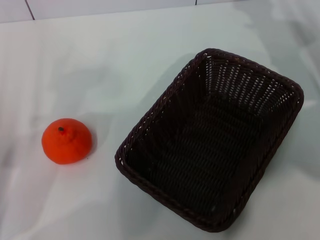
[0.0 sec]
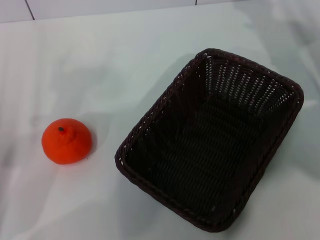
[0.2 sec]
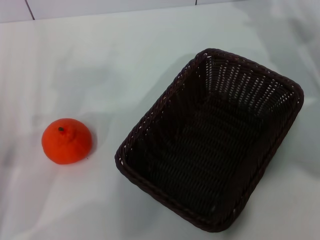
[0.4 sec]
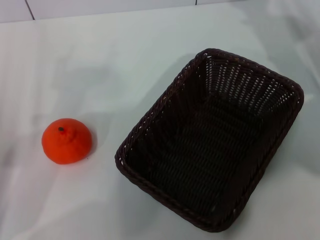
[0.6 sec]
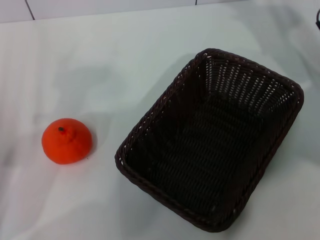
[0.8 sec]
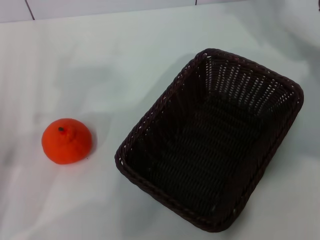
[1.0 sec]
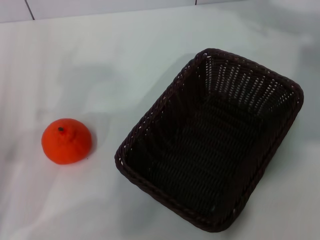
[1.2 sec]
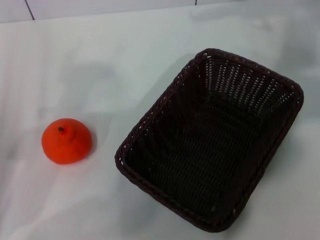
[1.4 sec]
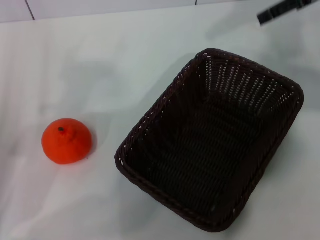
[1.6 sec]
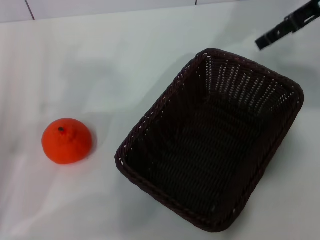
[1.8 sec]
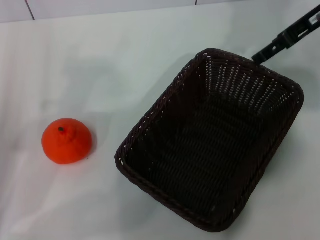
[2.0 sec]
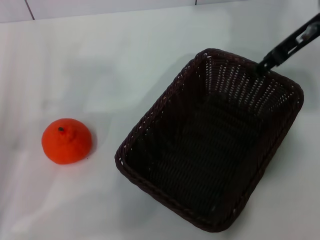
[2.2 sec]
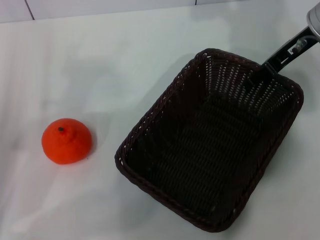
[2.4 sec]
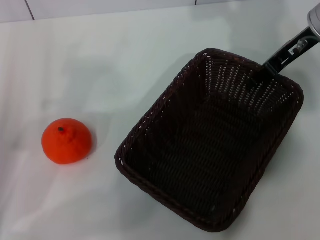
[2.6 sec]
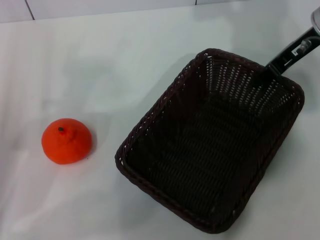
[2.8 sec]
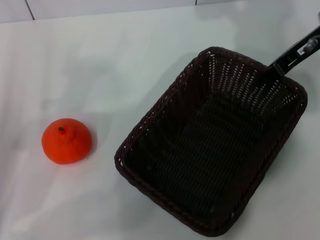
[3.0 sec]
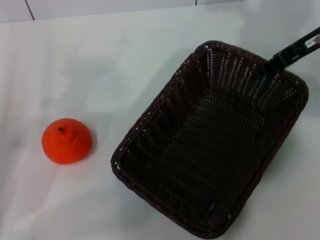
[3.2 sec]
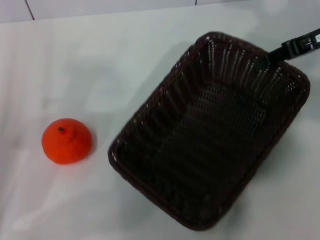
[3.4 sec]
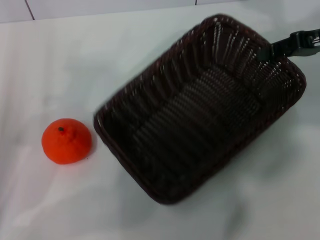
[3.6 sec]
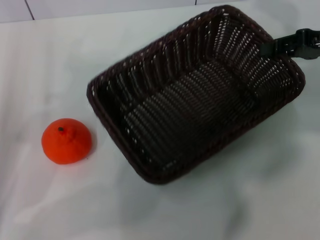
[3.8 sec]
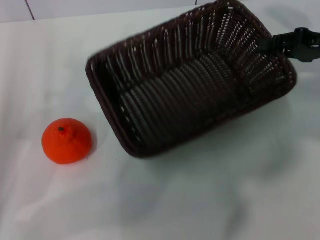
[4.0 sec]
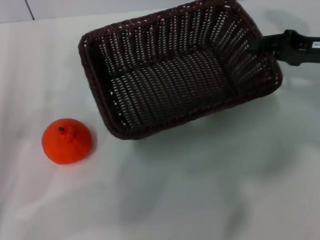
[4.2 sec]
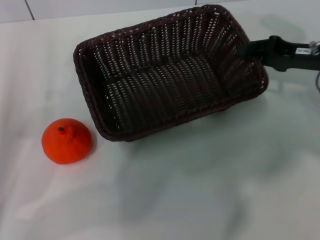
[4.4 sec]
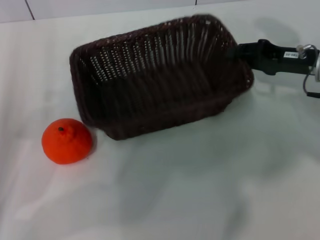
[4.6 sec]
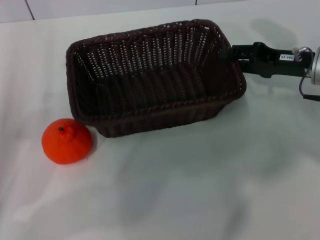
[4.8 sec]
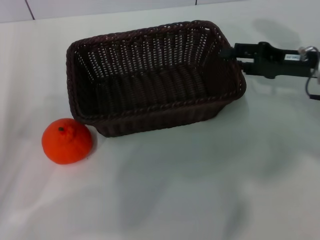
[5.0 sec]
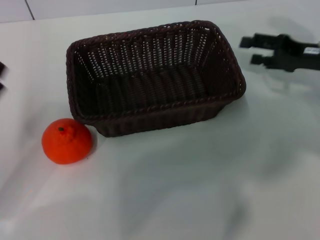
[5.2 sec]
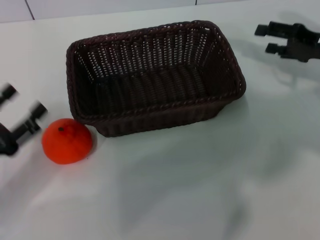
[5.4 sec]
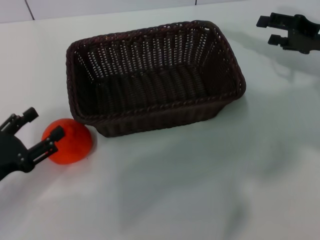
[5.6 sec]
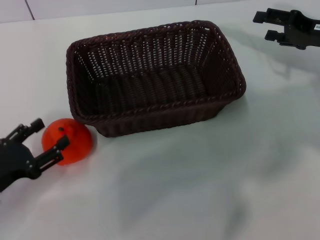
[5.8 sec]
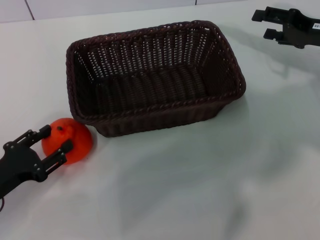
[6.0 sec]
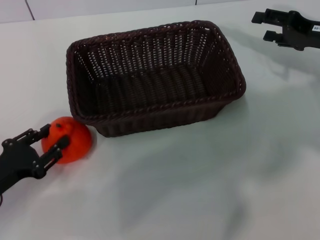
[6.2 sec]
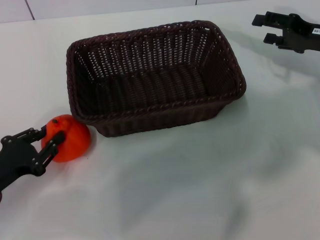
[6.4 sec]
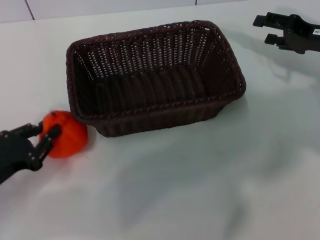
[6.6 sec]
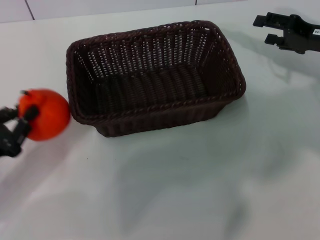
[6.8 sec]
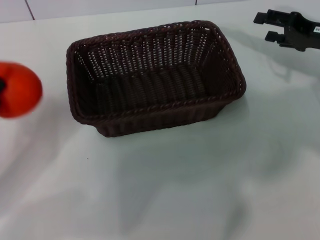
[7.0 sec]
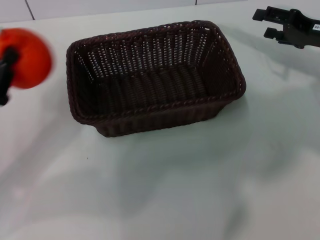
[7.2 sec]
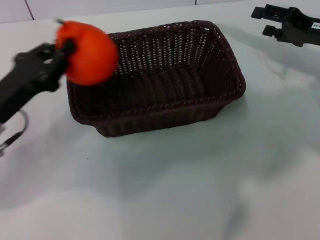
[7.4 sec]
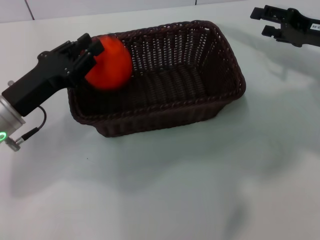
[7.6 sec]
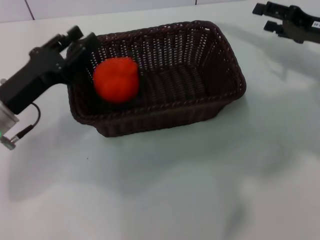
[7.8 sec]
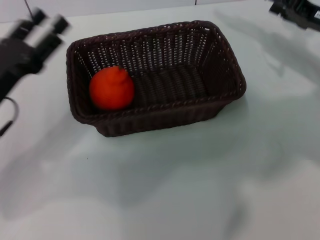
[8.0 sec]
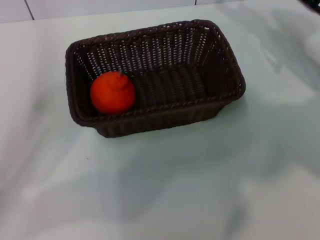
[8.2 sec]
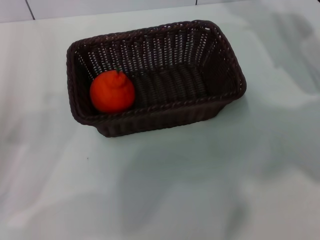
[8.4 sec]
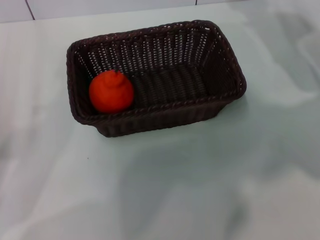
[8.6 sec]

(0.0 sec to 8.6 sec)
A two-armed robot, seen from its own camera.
Task of the whole recording: the right gripper pick up the black basket and place it horizontally in the middle of the table, the left gripper pick up the orange and place it into the black basket.
Step, 0.0 sec - 3.2 sec: Pick up the dark basket with the right gripper.
Step, 3.4 sec - 5.0 sec: Place the dark basket in the center of view with the right gripper.
Step, 5.2 sec - 6.6 sec: Pick up the orange with the left gripper.
Step, 6.8 sec - 7.6 sec: Place the orange into the dark basket with the left gripper.
0.0 sec - 1.4 sec: The right gripper heads upward, covering roughly 15 cm, and opens its fingers.
1.4 sec - 2.8 sec: The right gripper moves downward, approximately 5 cm, and closes up.
2.8 sec - 4.4 sec: The right gripper moves downward, approximately 10 cm.
4.4 sec - 5.8 sec: The right gripper opens its fingers, while the left gripper ends up about 5 cm from where it was.
5.8 sec - 7.2 sec: The left gripper shifts by approximately 5 cm, and closes its fingers.
7.2 sec - 8.6 sec: The left gripper opens its fingers.

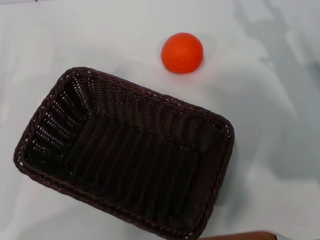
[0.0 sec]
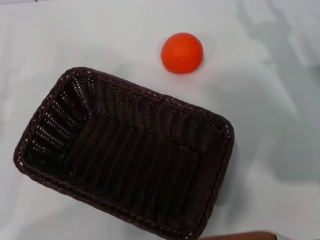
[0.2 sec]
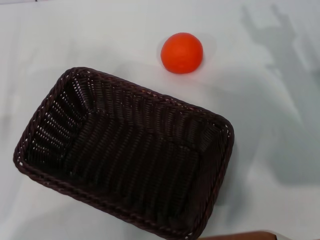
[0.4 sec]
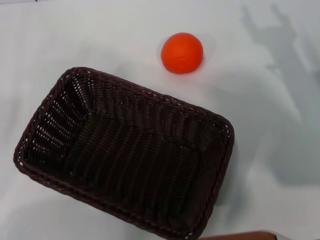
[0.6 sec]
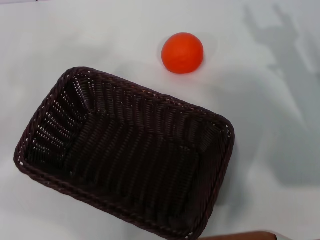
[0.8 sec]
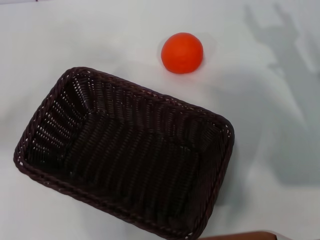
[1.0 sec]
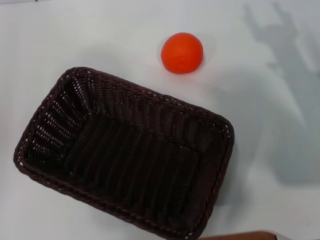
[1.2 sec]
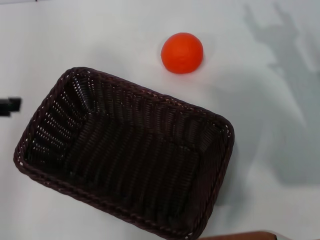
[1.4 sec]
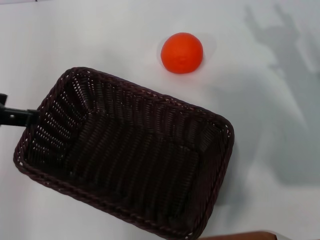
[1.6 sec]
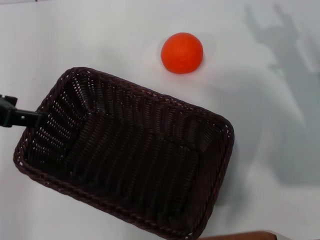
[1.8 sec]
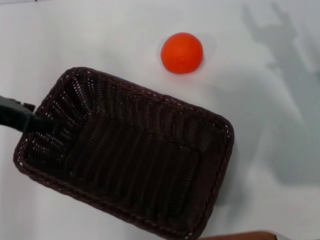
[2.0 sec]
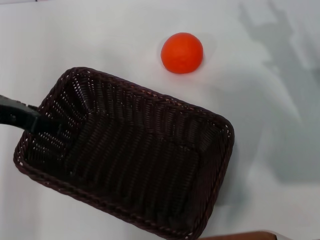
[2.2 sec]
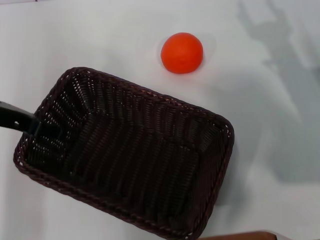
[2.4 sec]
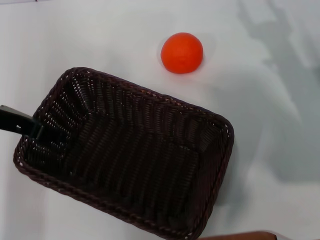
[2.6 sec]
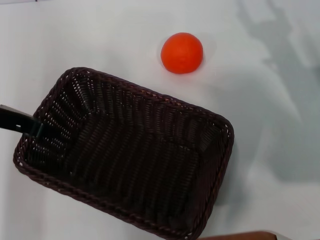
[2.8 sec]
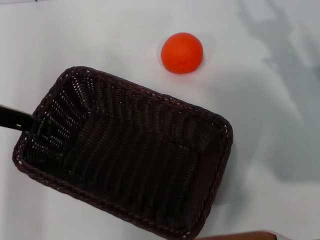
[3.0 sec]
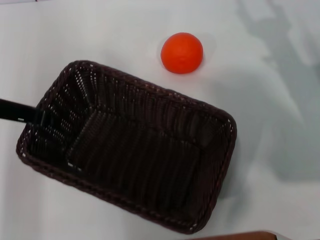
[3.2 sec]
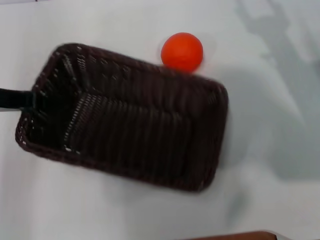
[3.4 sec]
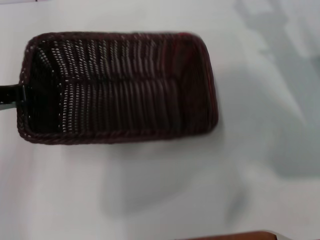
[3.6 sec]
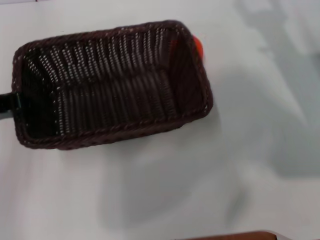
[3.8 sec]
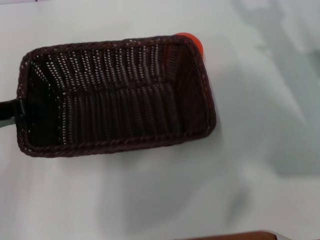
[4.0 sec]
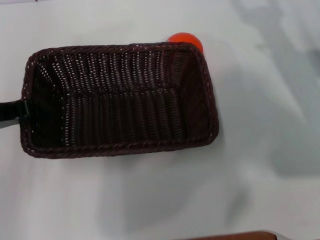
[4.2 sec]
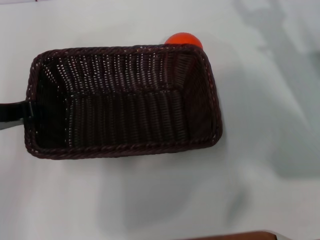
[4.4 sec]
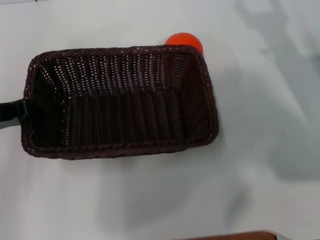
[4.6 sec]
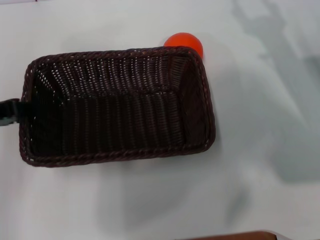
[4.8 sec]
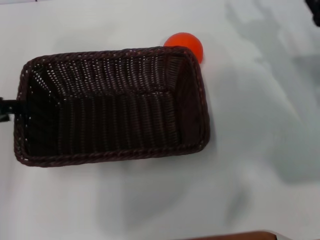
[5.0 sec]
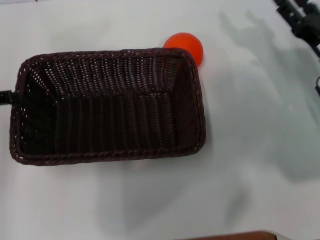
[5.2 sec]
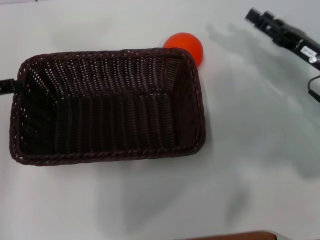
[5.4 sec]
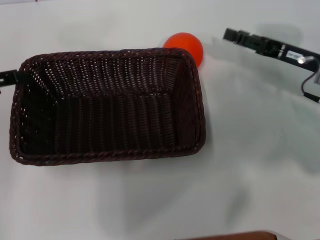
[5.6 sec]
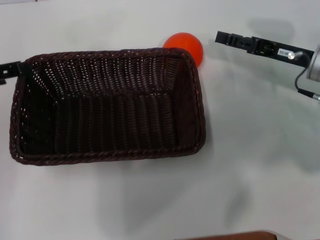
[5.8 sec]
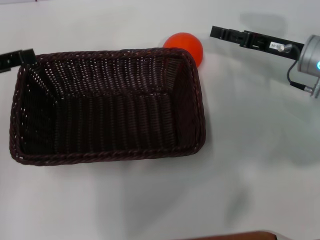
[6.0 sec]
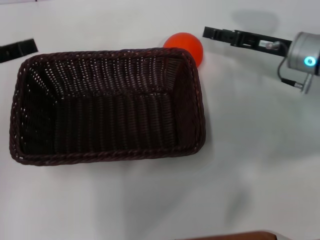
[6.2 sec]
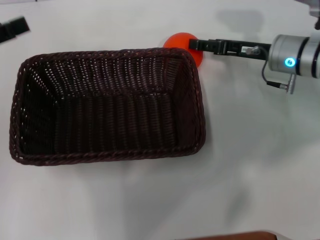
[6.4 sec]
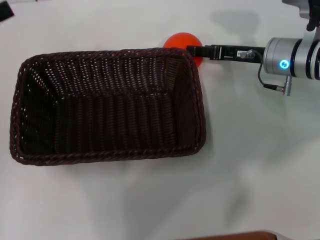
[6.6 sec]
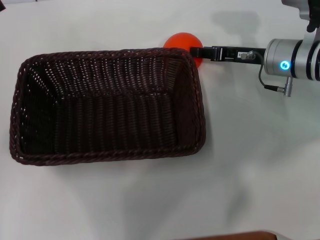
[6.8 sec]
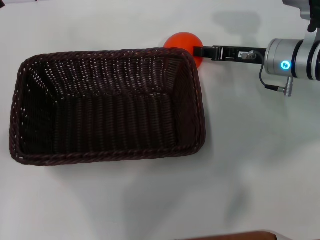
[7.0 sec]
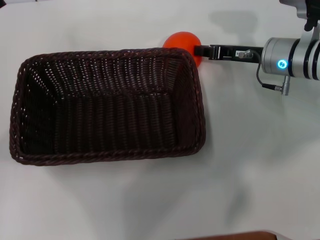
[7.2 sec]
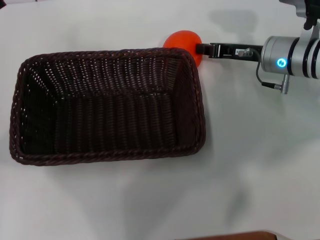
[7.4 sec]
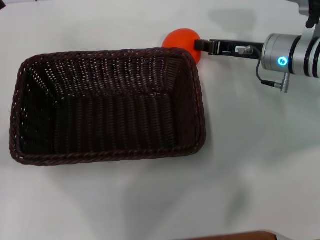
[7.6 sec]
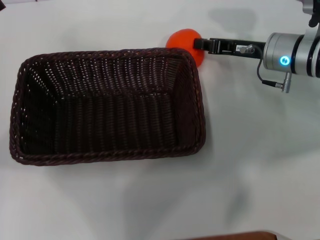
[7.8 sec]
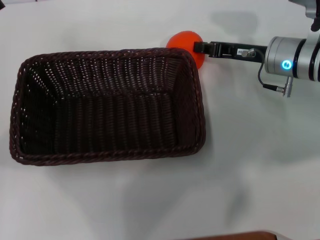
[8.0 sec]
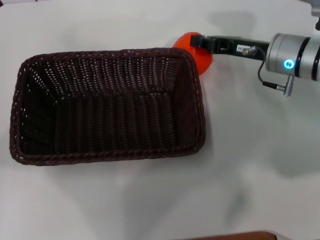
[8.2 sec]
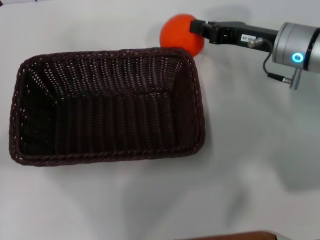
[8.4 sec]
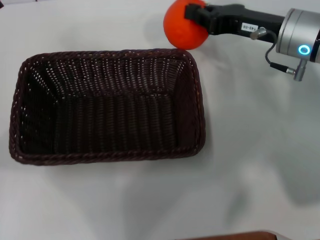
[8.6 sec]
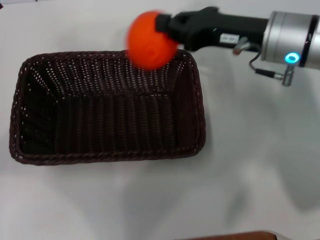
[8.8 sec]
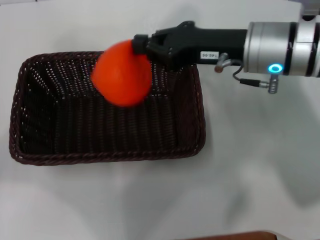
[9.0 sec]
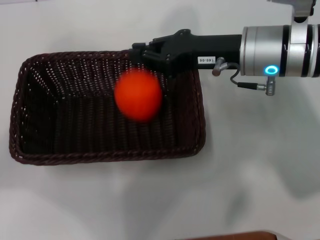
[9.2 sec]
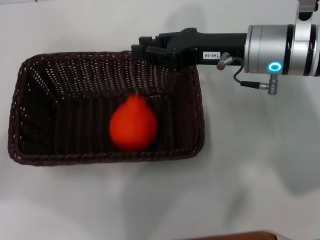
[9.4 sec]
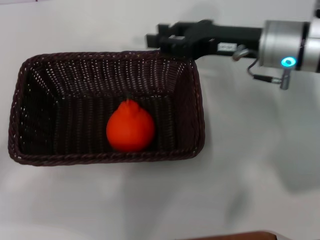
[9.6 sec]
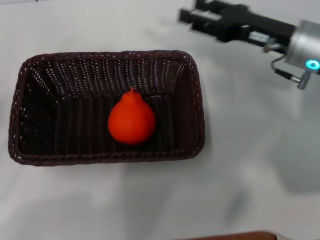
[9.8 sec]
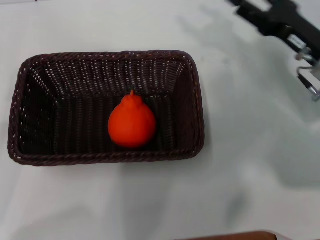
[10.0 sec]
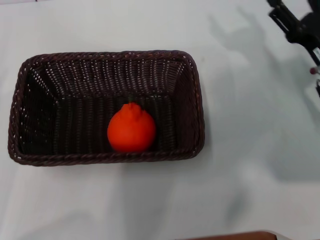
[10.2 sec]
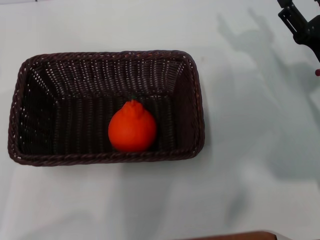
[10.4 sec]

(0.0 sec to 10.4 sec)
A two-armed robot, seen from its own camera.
Task of the whole recording: the left gripper pick up the black basket and place it horizontally in the middle of the table, the right gripper pick up the orange and place it into the black basket.
Step, 0.0 sec - 3.4 sec: Pick up the dark basket with the left gripper.
Step, 3.6 sec - 6.0 sec: Place the dark basket in the center of view with the left gripper.
Step, 6.2 sec - 8.6 sec: Pick up the orange with the right gripper.
Step, 8.8 sec - 9.8 sec: Place the orange into the dark basket with the right gripper.
0.0 sec - 1.4 sec: The left gripper moves upward, about 20 cm.
1.4 sec - 3.0 sec: The left gripper goes some 10 cm downward and to the right, and closes up.
4.4 sec - 6.0 sec: The left gripper ends up about 5 cm from where it was, and opens; the right gripper shifts about 5 cm forward.
6.0 sec - 7.4 sec: The right gripper shifts by about 5 cm, and closes up.
7.4 sec - 9.0 sec: The right gripper travels upward, to the left and backward by some 15 cm.
9.0 sec - 10.4 sec: The right gripper is displaced to the right and downward by about 15 cm, and opens. Meanwhile the left gripper goes approximately 15 cm downward and backward.
